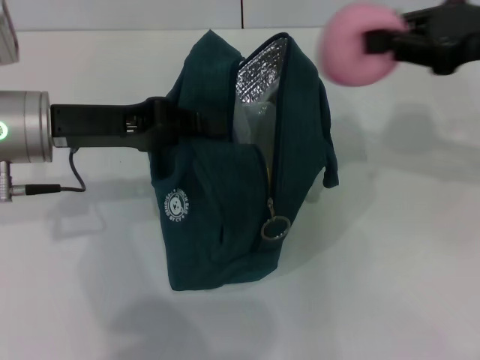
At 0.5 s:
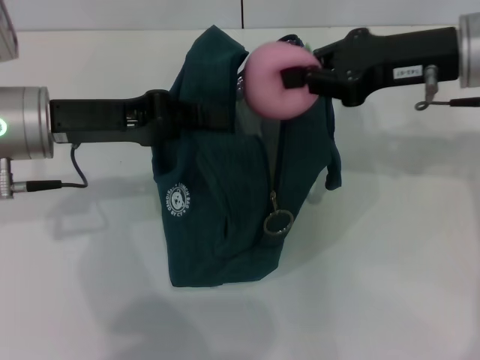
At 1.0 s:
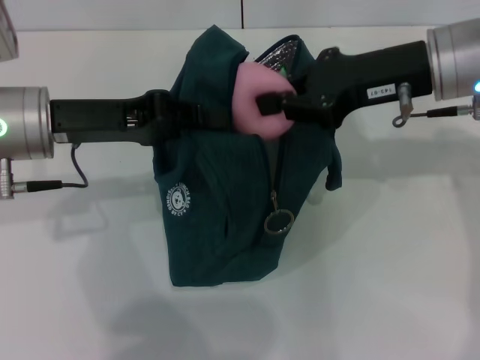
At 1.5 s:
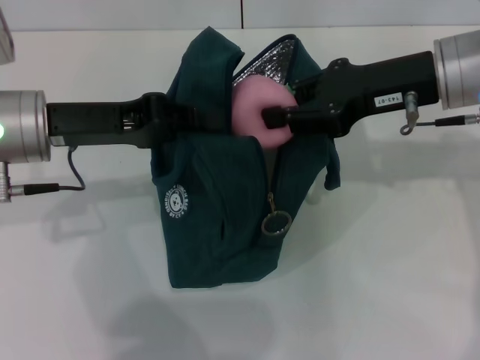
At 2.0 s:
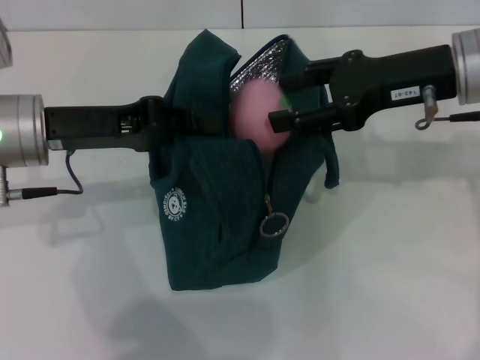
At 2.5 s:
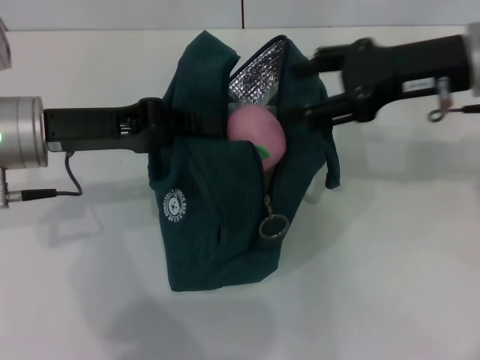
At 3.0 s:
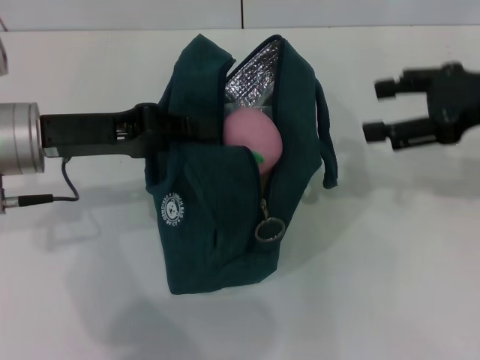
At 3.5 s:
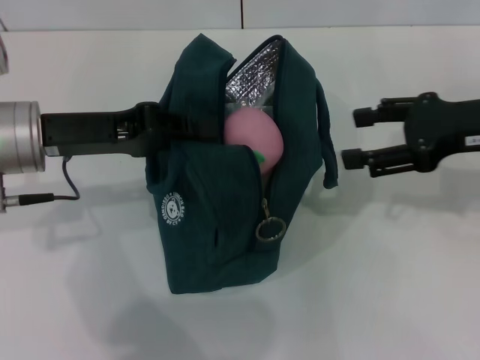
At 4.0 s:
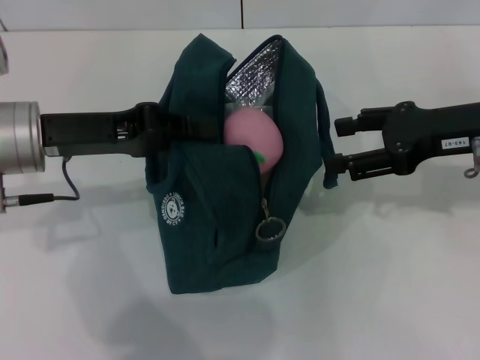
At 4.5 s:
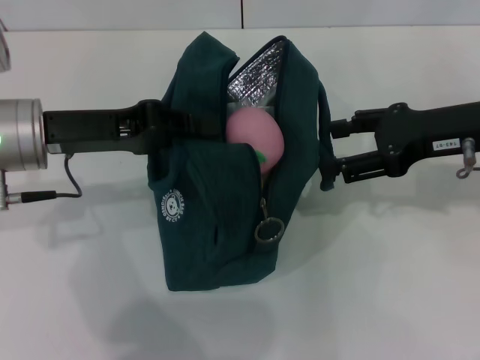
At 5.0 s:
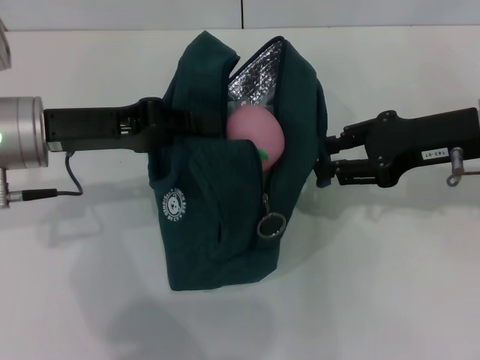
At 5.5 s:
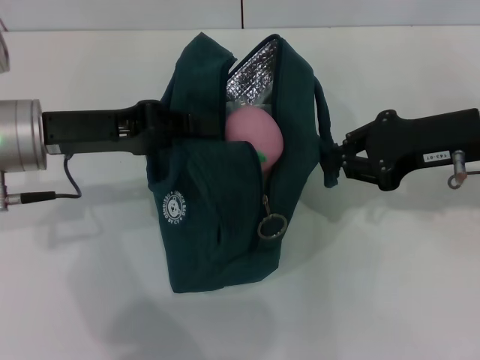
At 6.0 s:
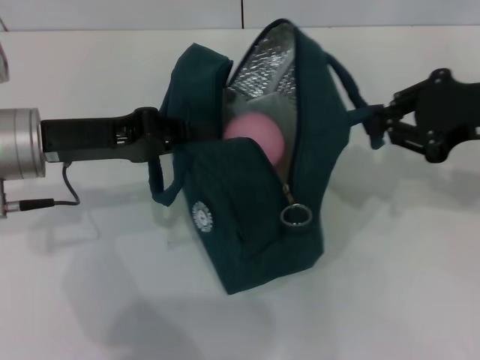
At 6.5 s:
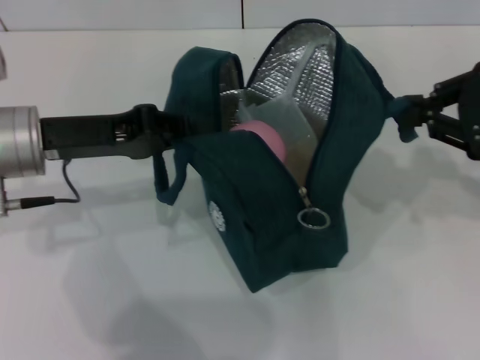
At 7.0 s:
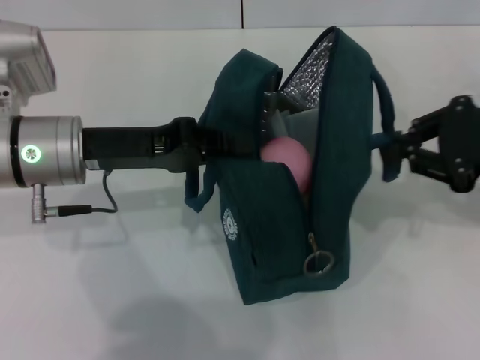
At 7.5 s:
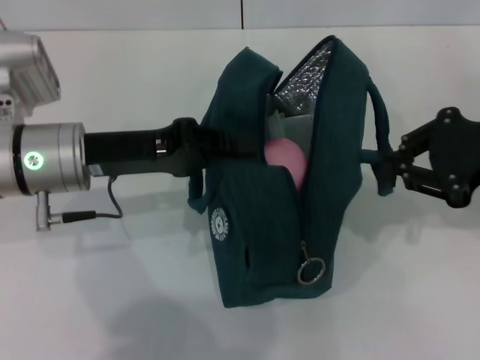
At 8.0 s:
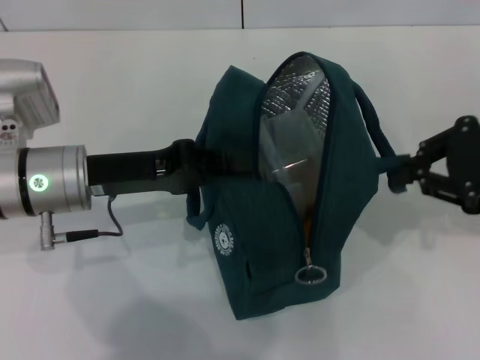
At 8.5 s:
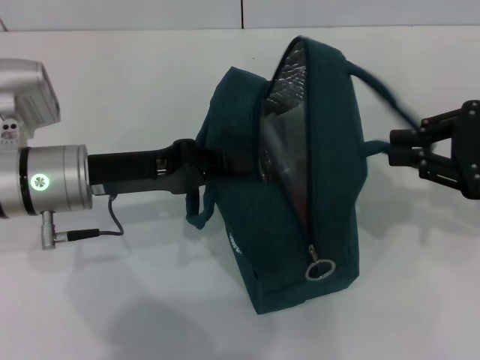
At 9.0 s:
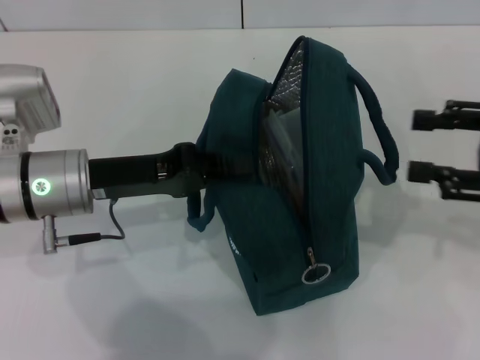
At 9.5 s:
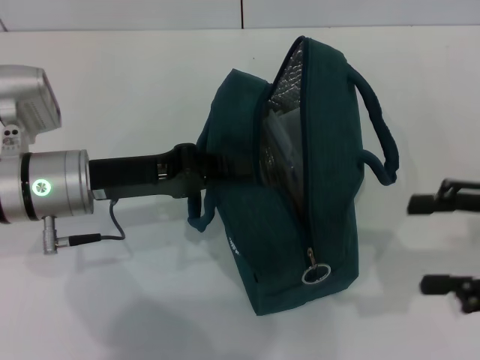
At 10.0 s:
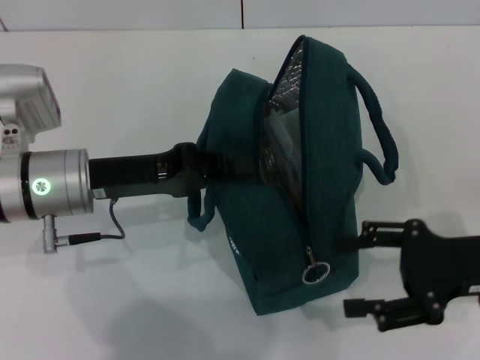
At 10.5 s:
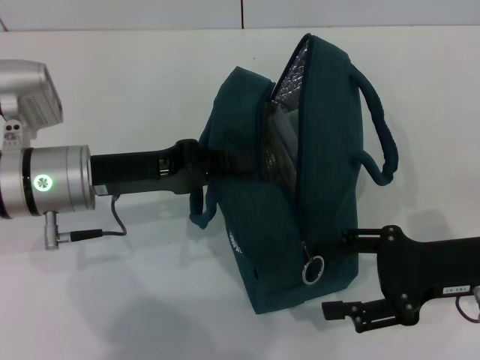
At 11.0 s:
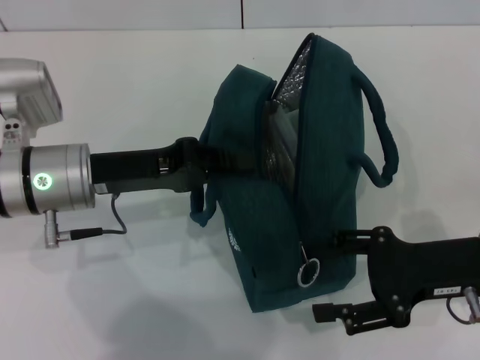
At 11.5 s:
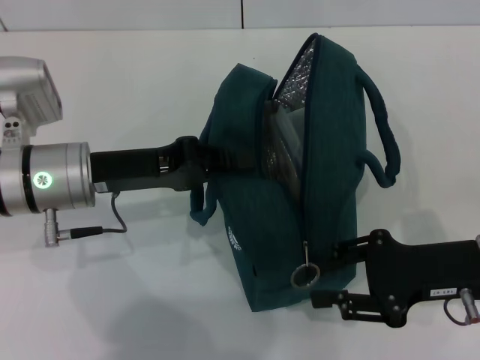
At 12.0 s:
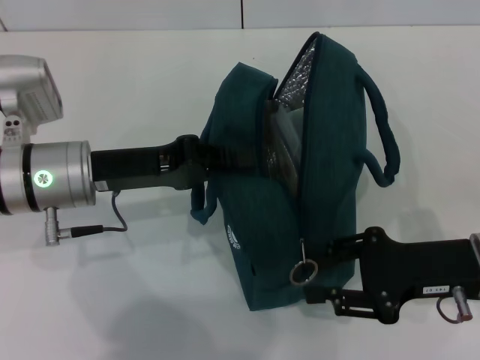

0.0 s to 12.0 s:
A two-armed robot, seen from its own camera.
Step, 4.0 to 8.5 s: Hold the lunch bag with your right hand.
0.0 to 2.0 s: The right gripper heads to the left, covering about 5 cm, and opens its fingers.
2.0 to 4.0 s: The right gripper goes roughly 5 cm to the right.
4.0 to 6.0 s: The right gripper closes up.
8.0 to 10.0 s: The right gripper shifts some 10 cm downward, and opens up.
10.0 to 12.0 s: The right gripper closes up.

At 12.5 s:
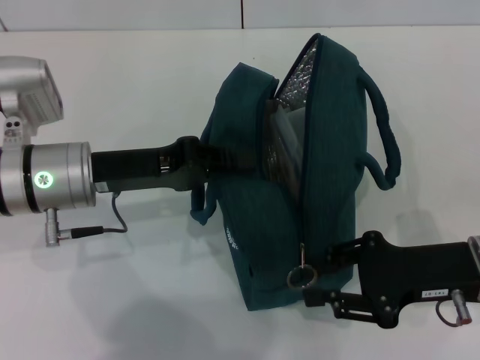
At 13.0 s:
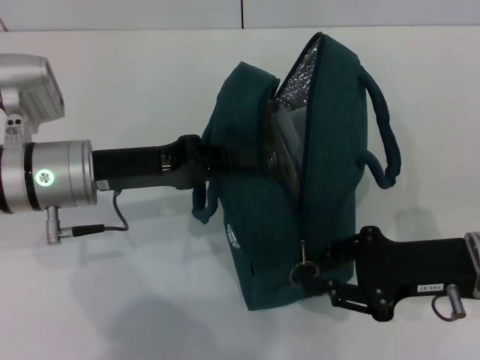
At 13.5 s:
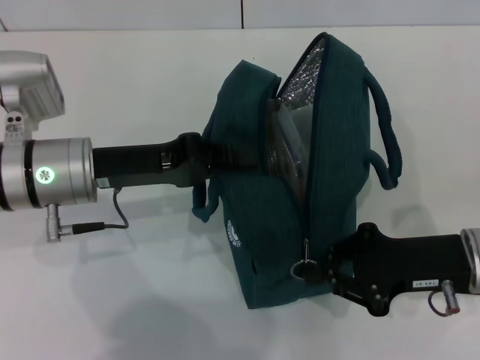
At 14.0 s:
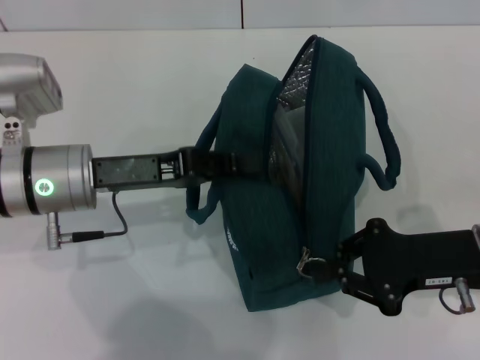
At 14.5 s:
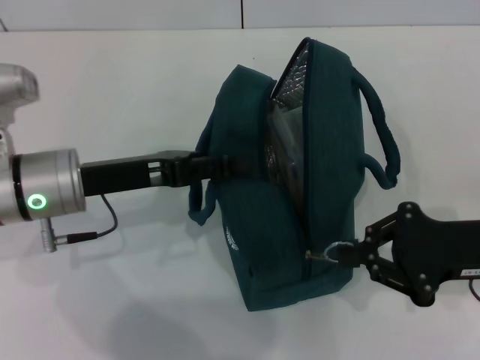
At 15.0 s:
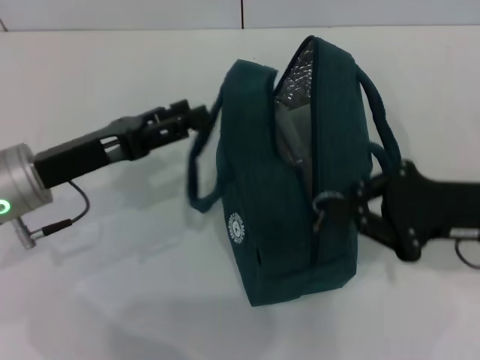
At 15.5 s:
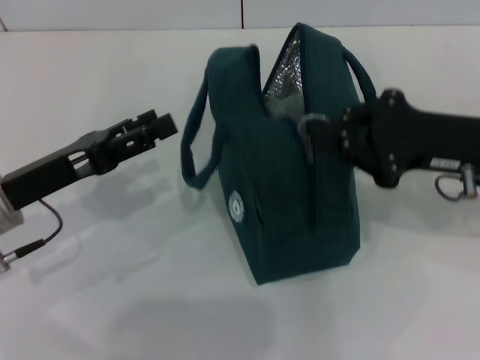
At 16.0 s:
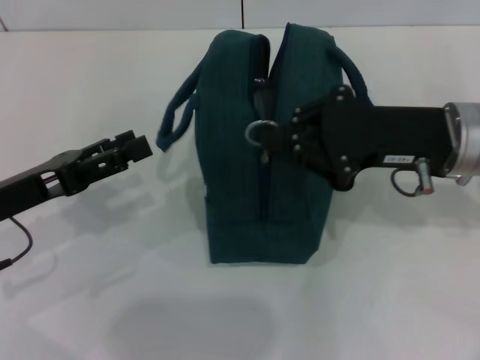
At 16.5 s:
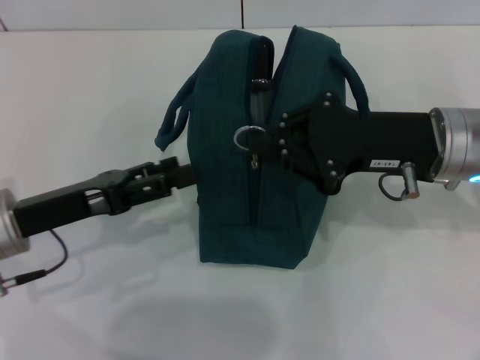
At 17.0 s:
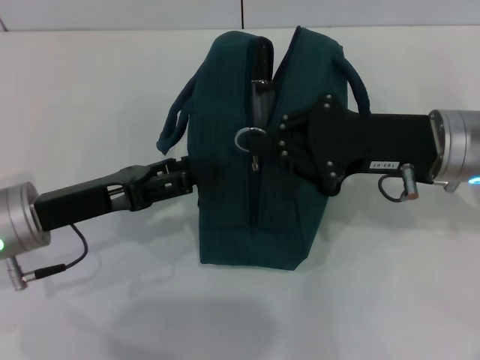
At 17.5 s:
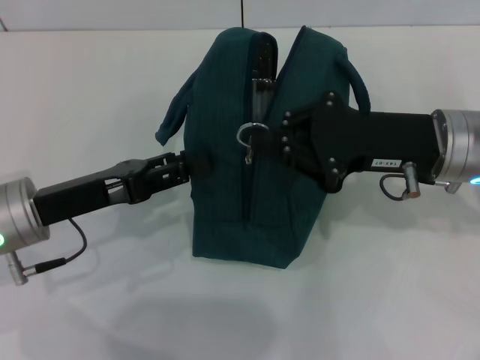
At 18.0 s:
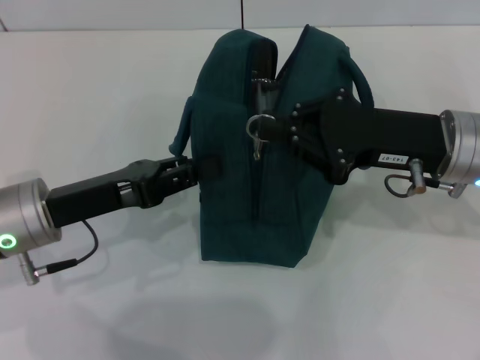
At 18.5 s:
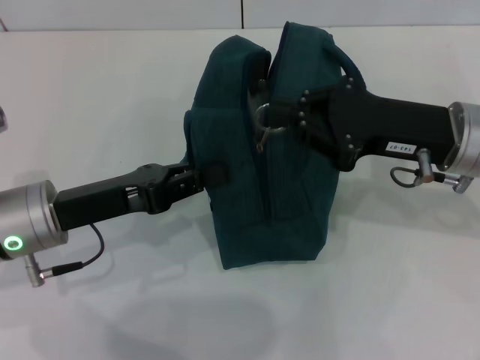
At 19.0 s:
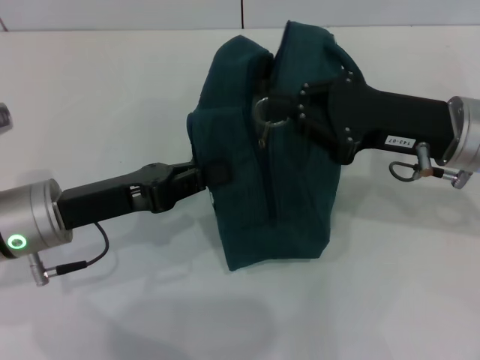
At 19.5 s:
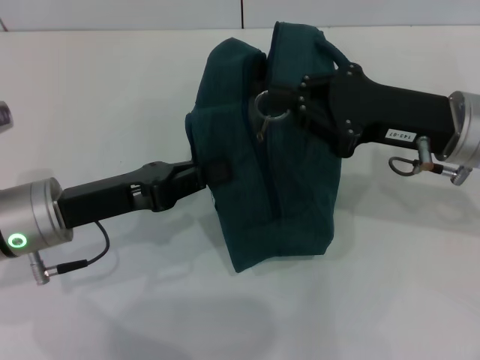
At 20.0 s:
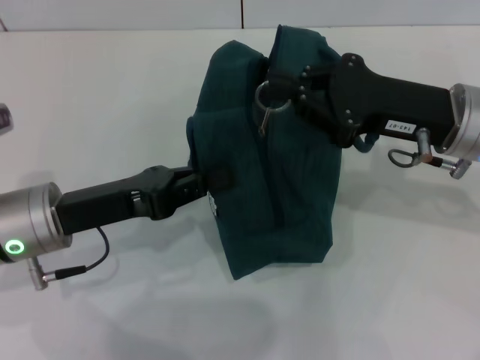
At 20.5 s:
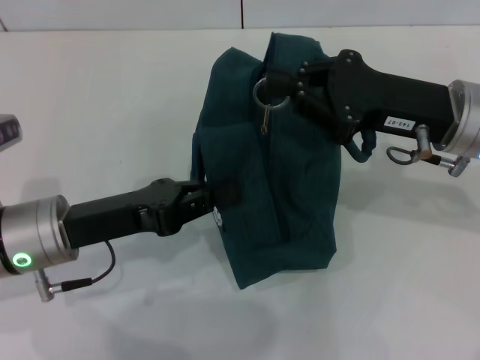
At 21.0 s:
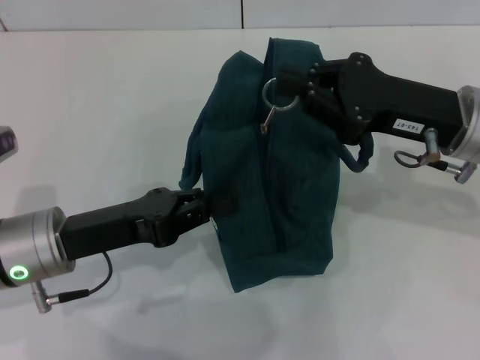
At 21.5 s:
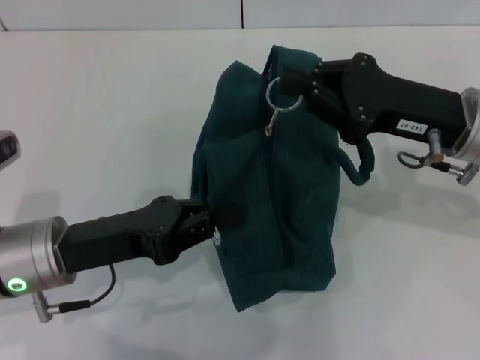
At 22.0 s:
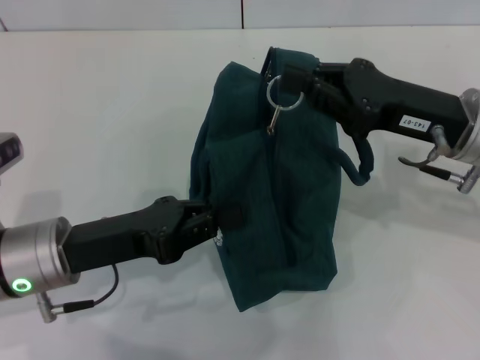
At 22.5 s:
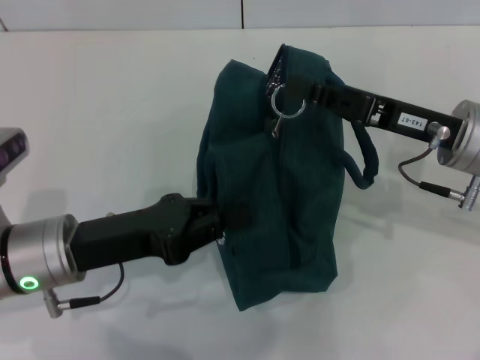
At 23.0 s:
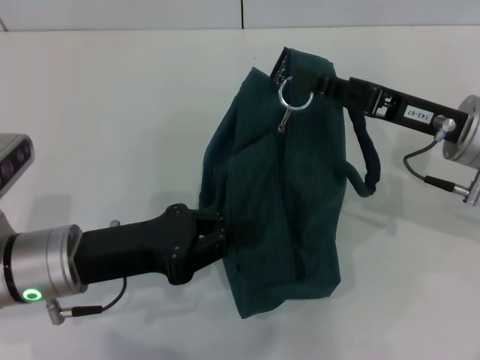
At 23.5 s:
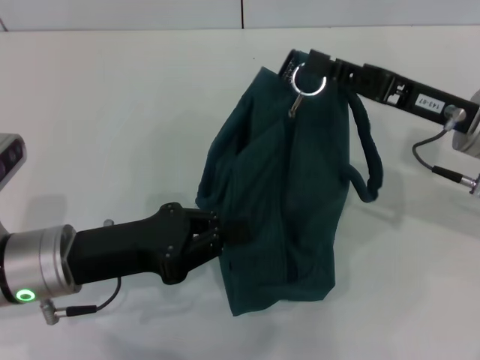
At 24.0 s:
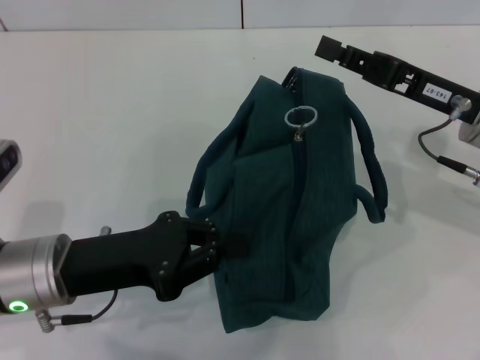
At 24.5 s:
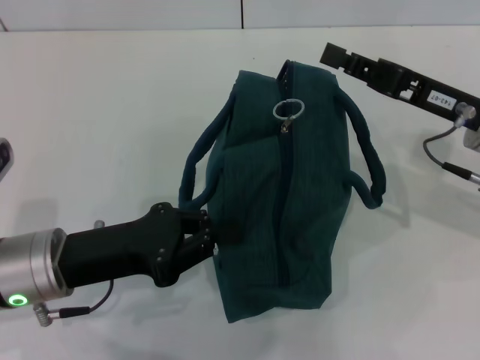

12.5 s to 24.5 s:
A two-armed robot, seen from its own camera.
Step, 12.5 to 16.0 s: Hold the lunch bag with your left hand.
12.5 to 14.5 s: The left gripper opens up.
14.5 to 16.5 s: The left gripper changes place by approximately 5 cm, and opens; the right gripper shifts roughly 10 cm to the left and forward.
16.5 to 18.5 s: The left gripper closes.
18.5 to 20.5 s: The two grippers keep their place.
22.5 to 24.5 s: The grippers move only a little.

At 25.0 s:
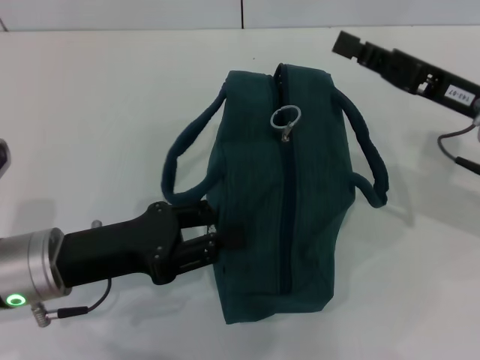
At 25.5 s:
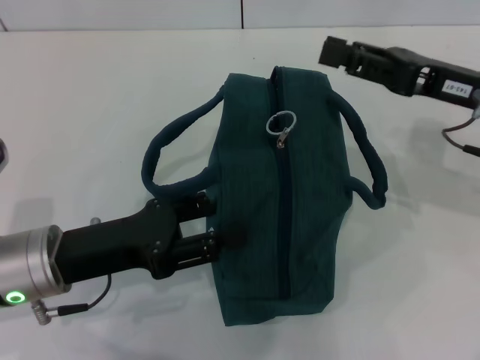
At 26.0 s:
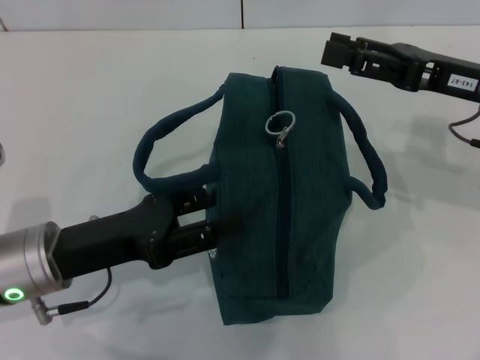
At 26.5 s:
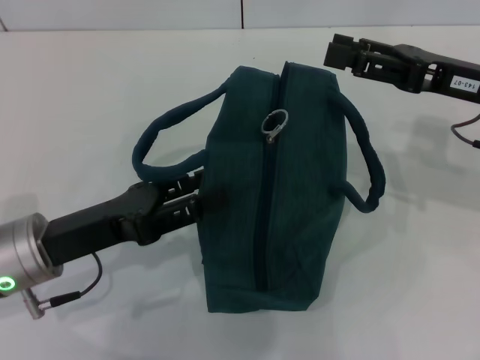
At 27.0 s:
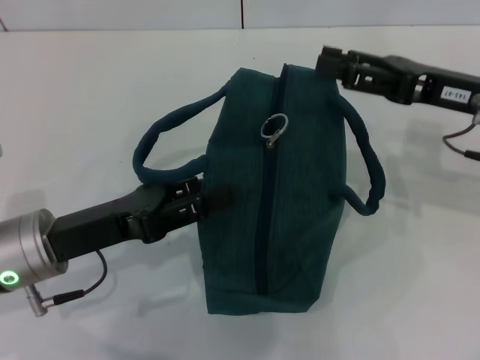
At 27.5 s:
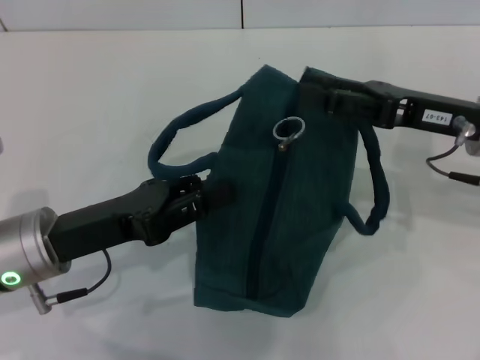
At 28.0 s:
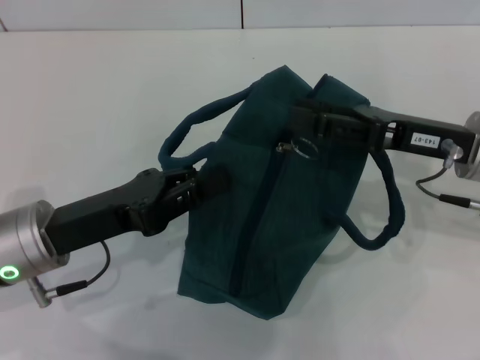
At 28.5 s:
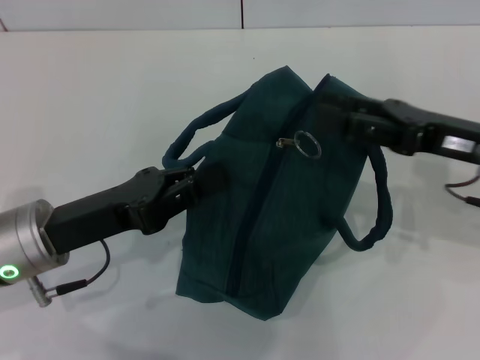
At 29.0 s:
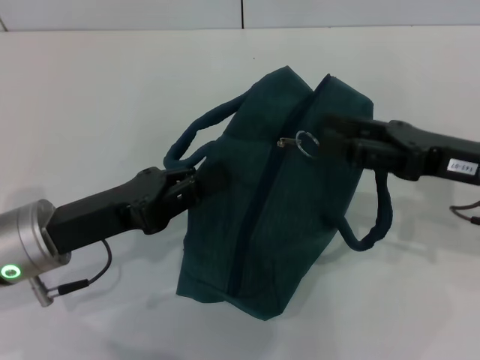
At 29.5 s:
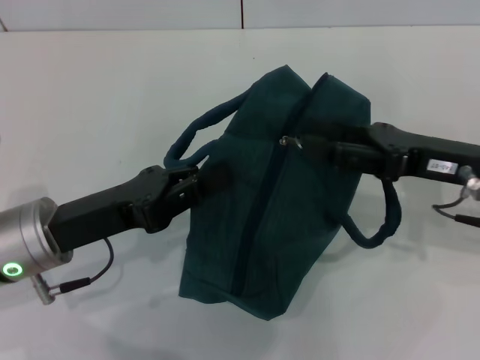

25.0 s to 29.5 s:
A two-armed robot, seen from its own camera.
25.0 to 27.0 s: The right gripper opens up. The left gripper opens its fingers.
27.0 to 29.5 s: The left gripper closes up. The right gripper moves approximately 5 cm.
